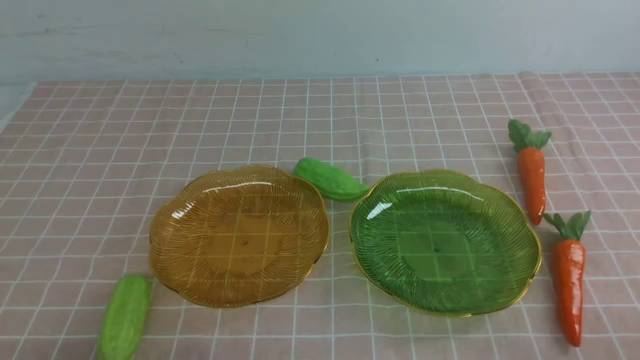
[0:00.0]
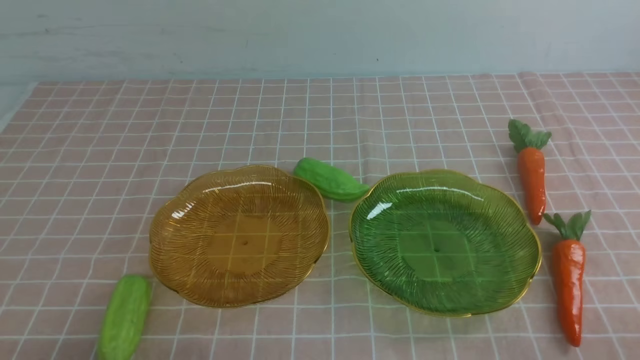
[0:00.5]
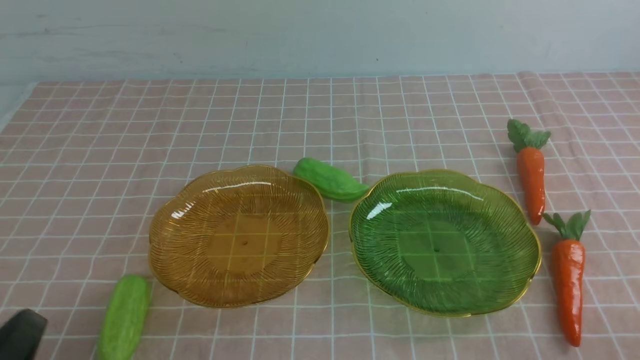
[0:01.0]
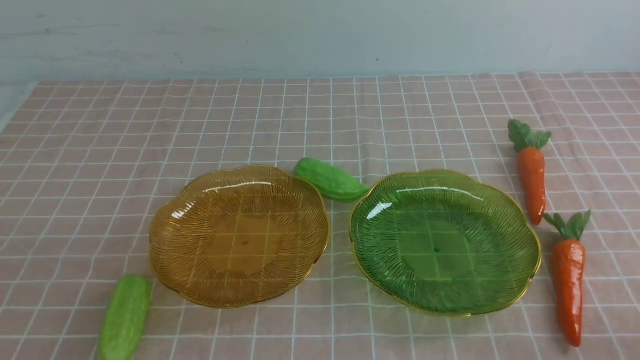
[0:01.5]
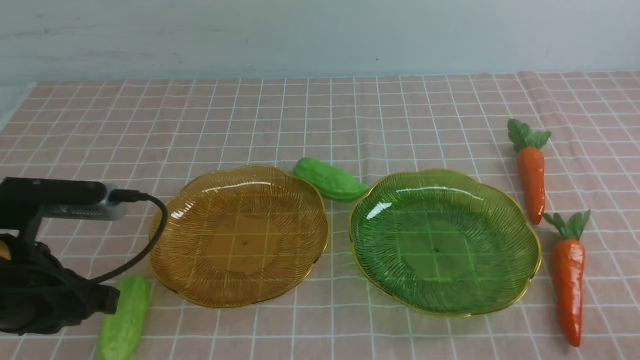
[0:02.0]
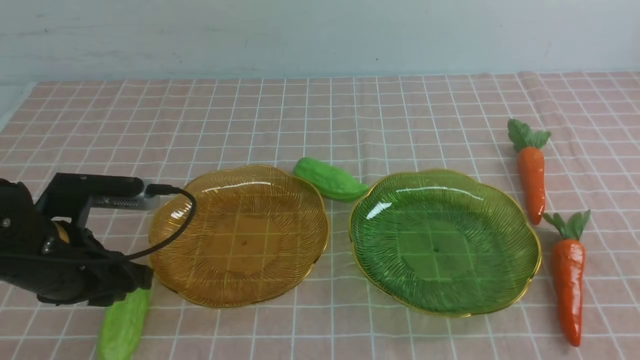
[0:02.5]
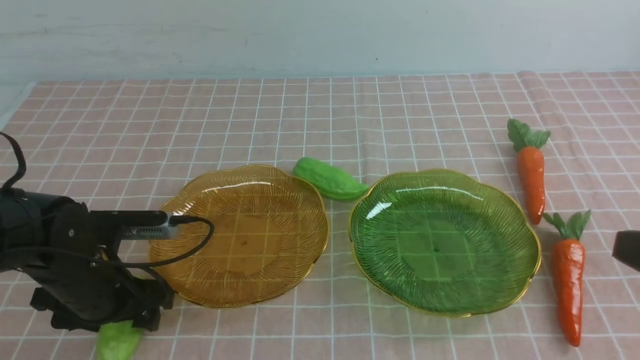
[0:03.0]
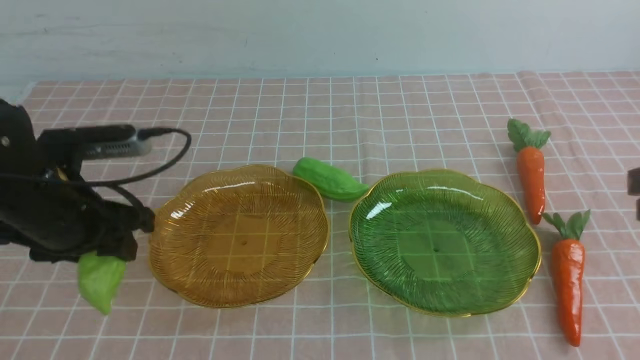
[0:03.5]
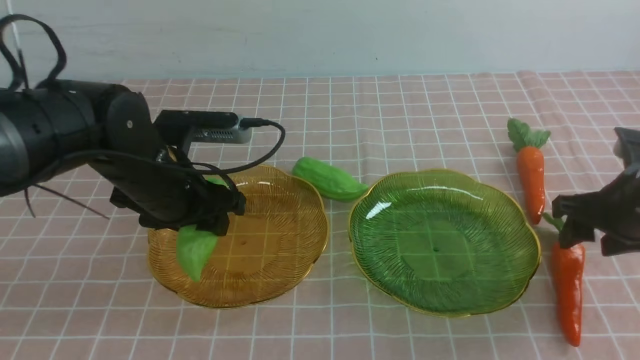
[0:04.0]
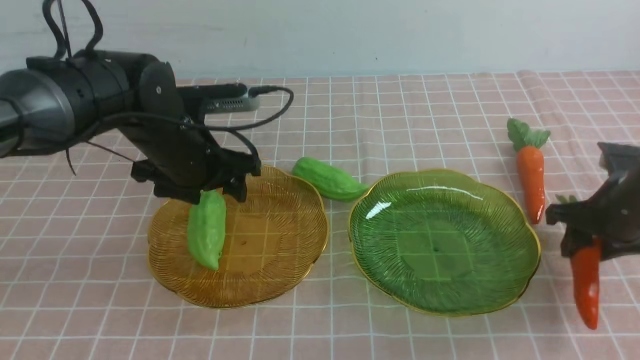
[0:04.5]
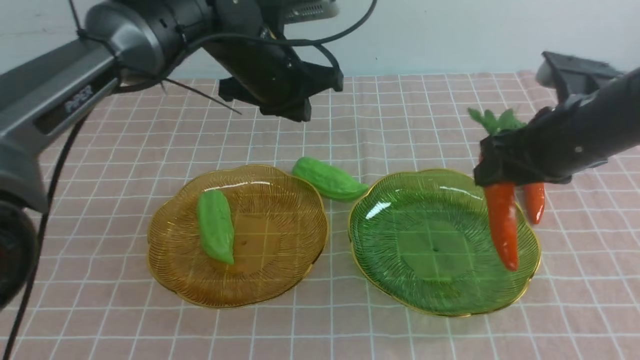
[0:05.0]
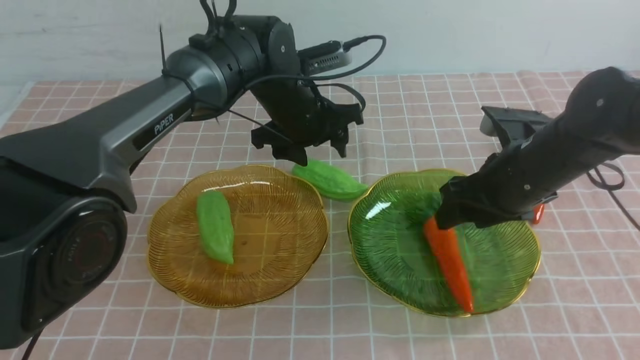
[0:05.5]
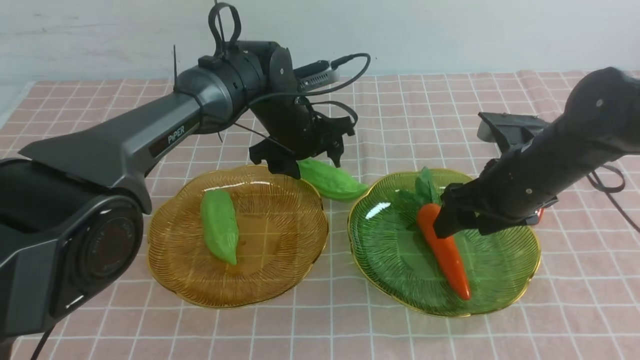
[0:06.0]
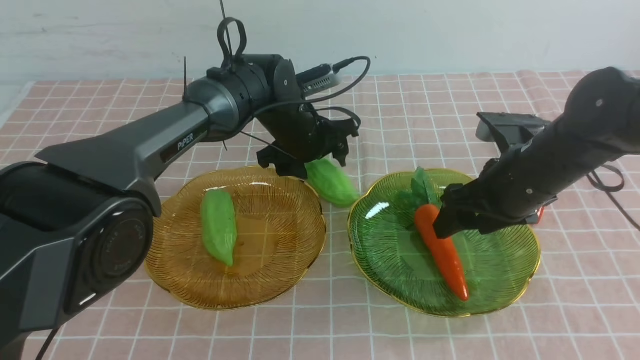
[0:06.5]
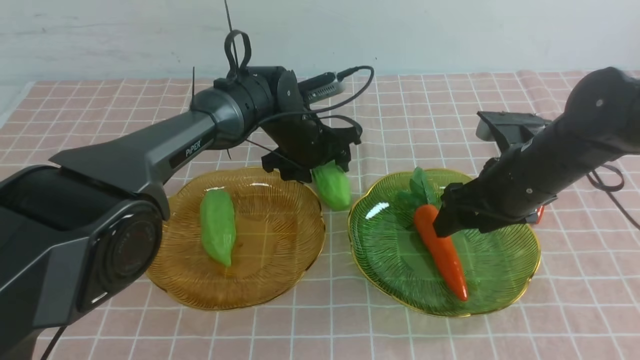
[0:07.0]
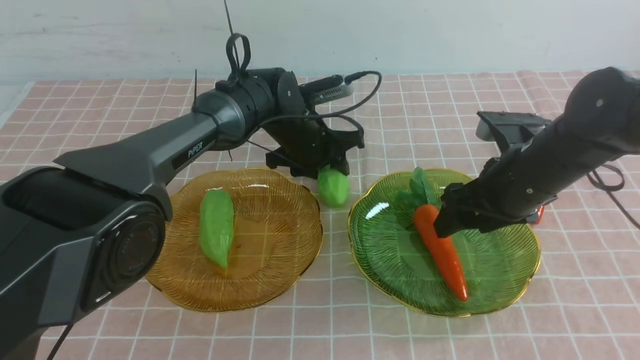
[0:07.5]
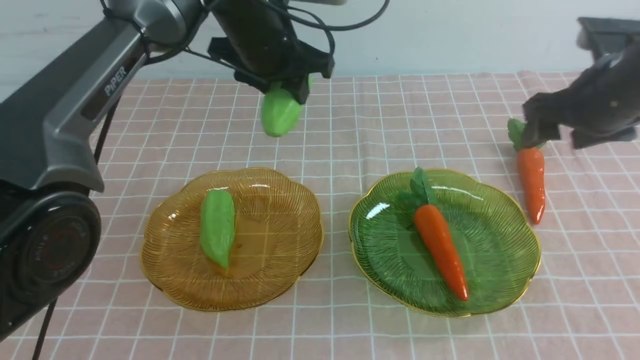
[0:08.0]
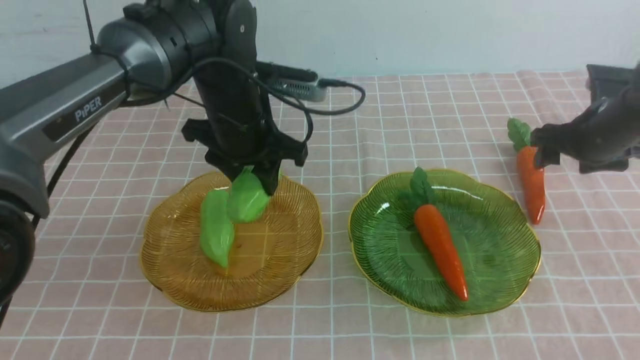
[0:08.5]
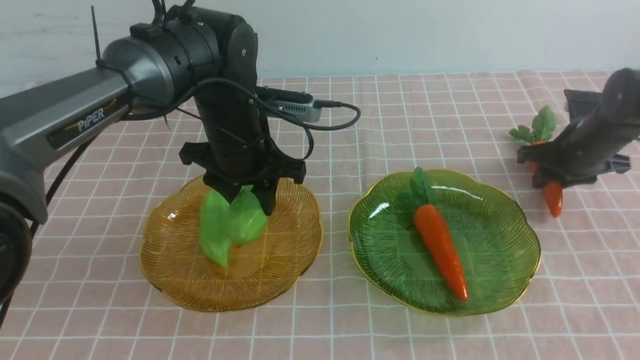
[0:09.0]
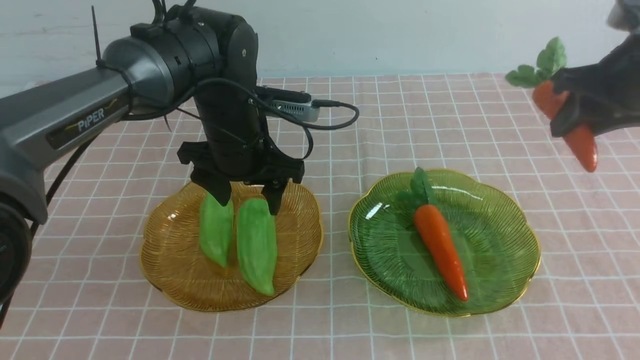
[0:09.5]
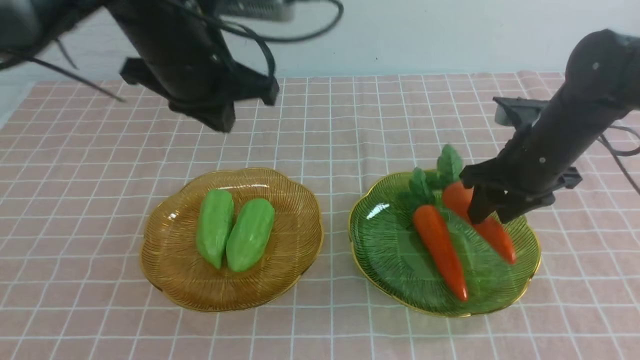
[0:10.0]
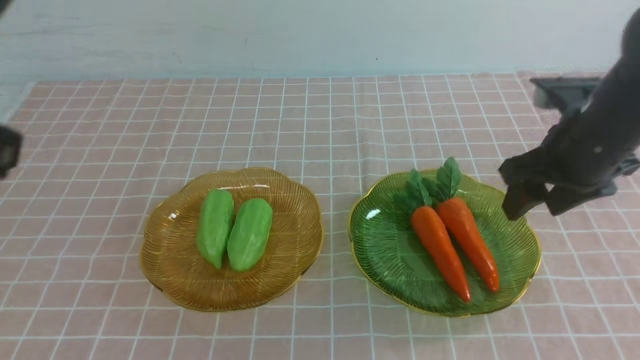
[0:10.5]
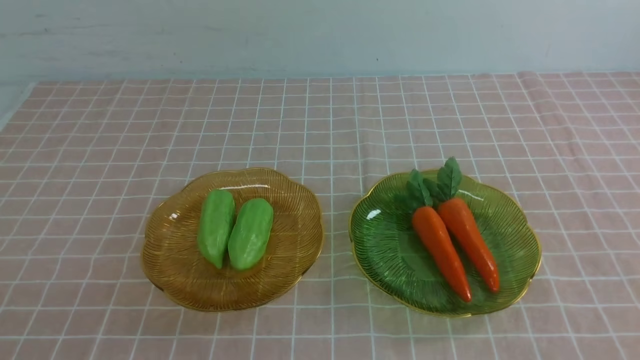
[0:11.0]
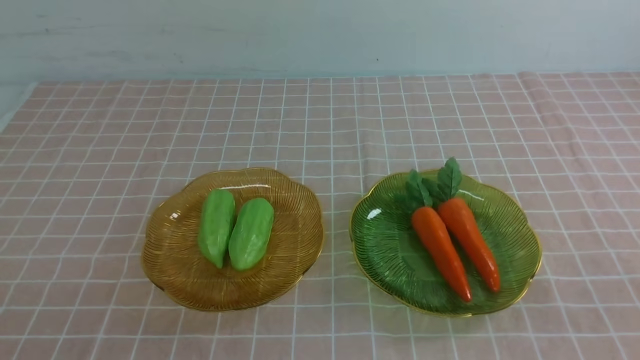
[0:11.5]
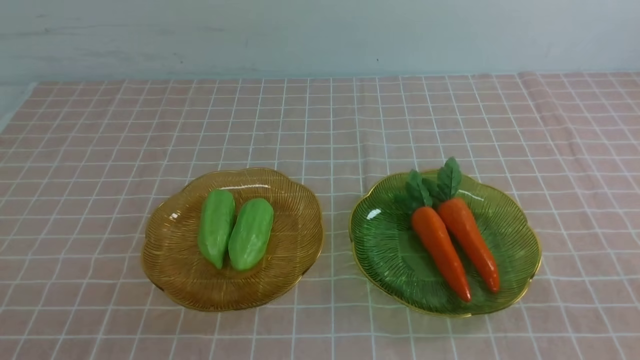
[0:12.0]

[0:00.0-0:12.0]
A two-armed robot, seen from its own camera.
Step, 0:00.0 to 0:04.0: use the left arm to grab a chayote and put it into the left plate.
Step, 0:04.5 to 0:05.5: use the right arm to grab a carrot and put it into the right plate.
Step, 0:06.0 to 0:08.0: use the left arm to grab a chayote and put it into the left plate.
Step, 0:08.5 to 0:10.0: use the right arm to grab a carrot and put it into the right plate.
0:00.0 to 0:02.0: The left gripper heads forward, covering about 15 cm.
0:02.0 to 0:04.0: The left gripper is displaced forward and to the right by approximately 15 cm, and opens its fingers; the right gripper goes roughly 25 cm forward, and opens its fingers.
0:04.0 to 0:06.0: The right gripper moves to the left, some 10 cm. The left gripper moves forward and to the right, approximately 15 cm, and closes, then reopens.
0:06.0 to 0:08.0: The right gripper travels to the right and forward by some 15 cm. The left gripper shifts roughly 10 cm upward, and closes.
0:08.0 to 0:10.0: The right gripper swings up and down, roughly 15 cm each way, with 2 reversals, and closes, then reopens; the left gripper shifts some 20 cm backward, upward and to the left, and closes its fingers.
0:10.0 to 0:12.0: The right gripper goes about 35 cm backward, and closes; the left gripper goes approximately 30 cm backward, downward and to the left.

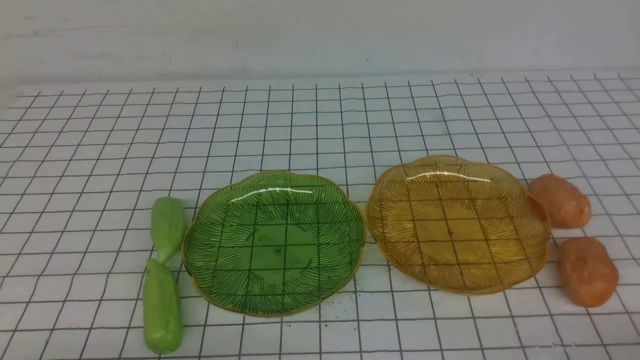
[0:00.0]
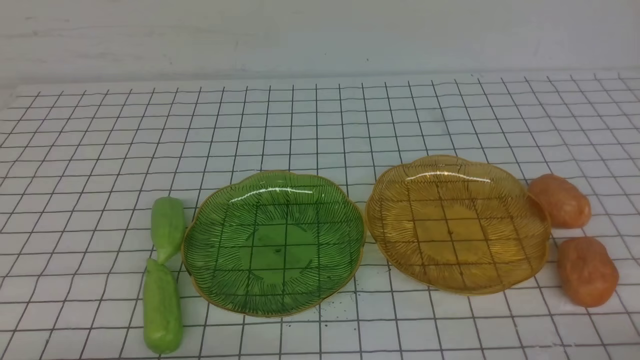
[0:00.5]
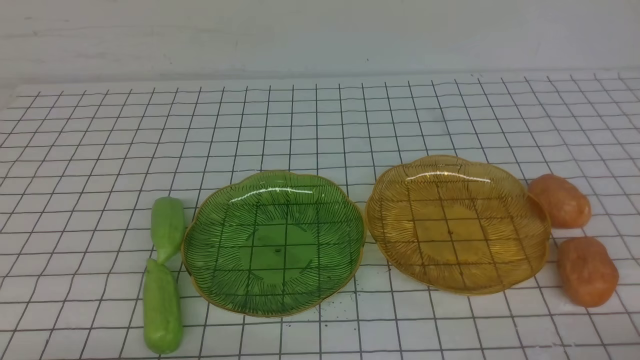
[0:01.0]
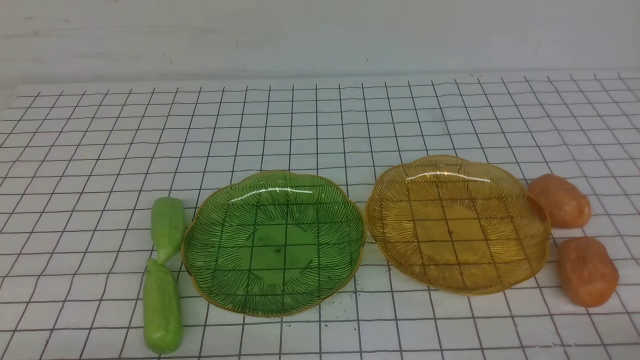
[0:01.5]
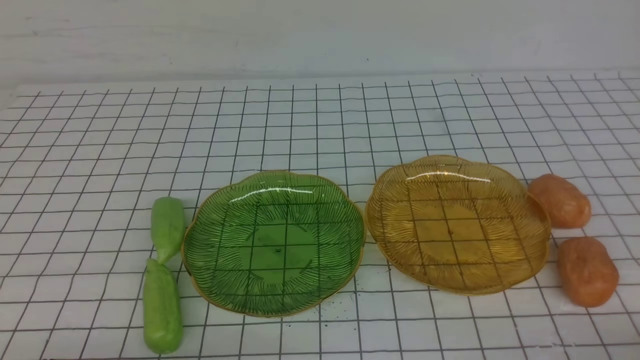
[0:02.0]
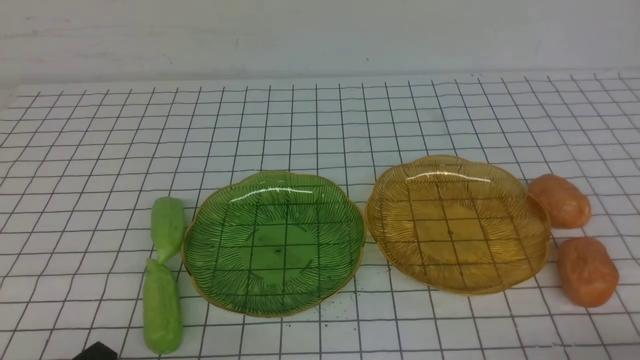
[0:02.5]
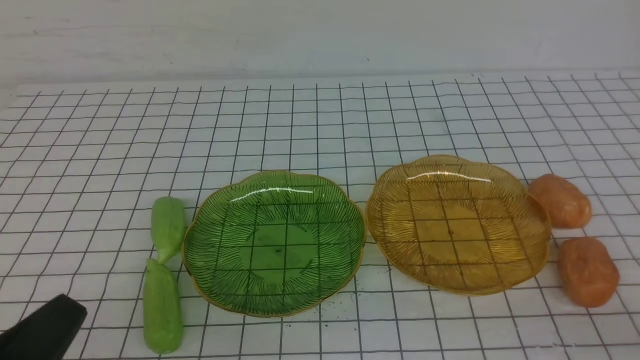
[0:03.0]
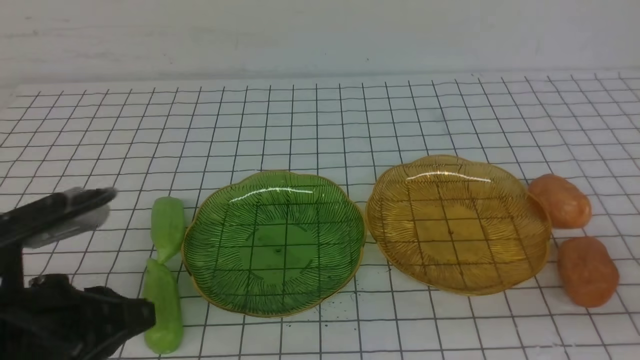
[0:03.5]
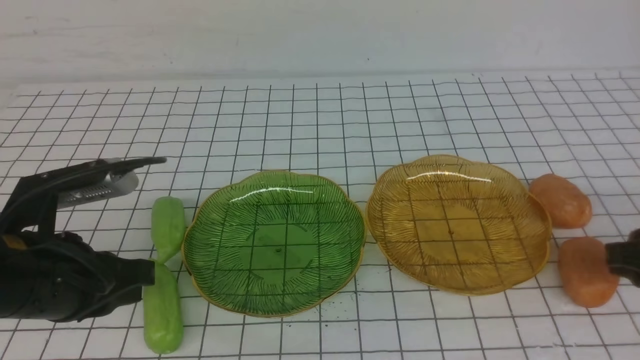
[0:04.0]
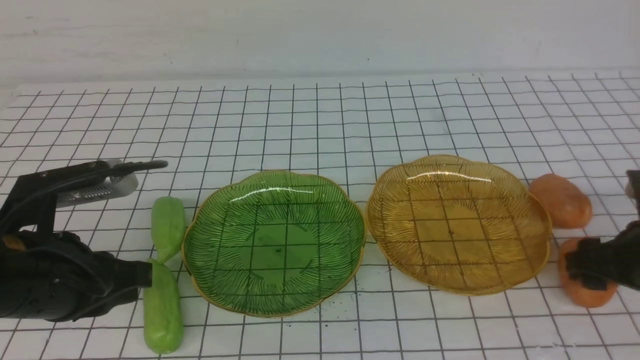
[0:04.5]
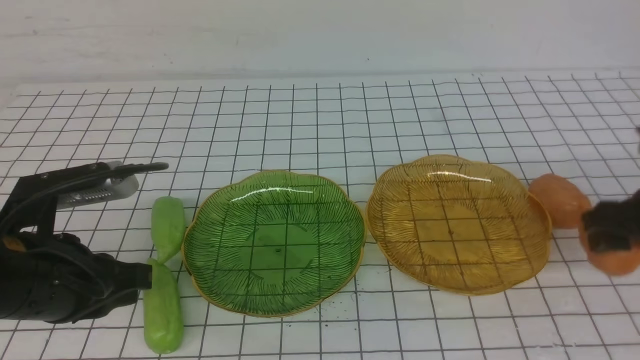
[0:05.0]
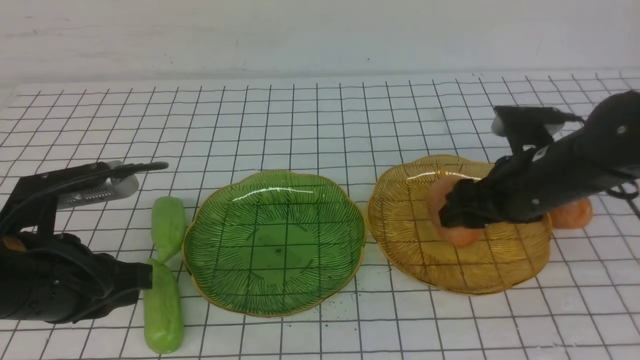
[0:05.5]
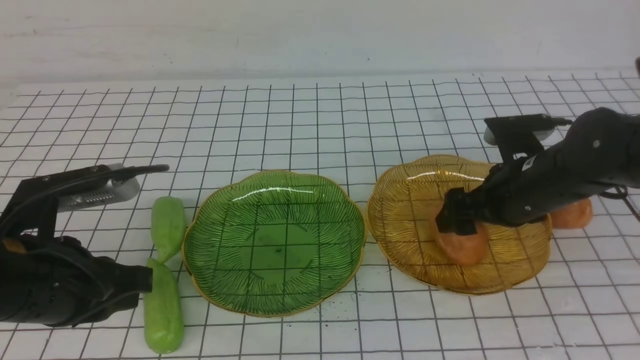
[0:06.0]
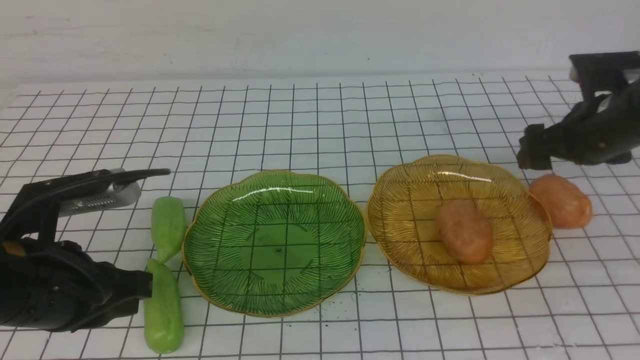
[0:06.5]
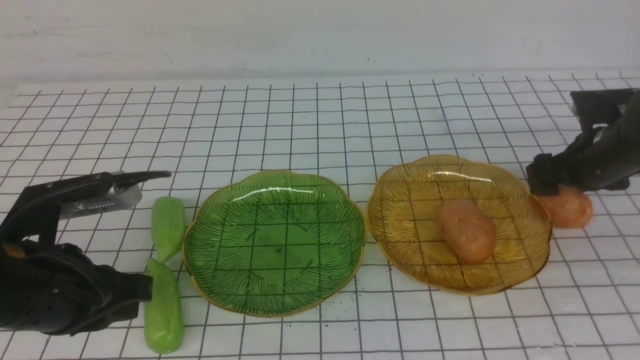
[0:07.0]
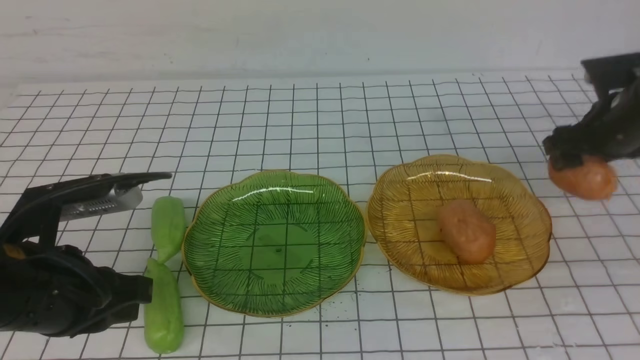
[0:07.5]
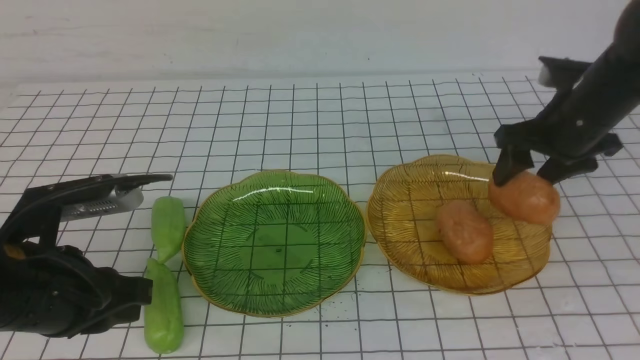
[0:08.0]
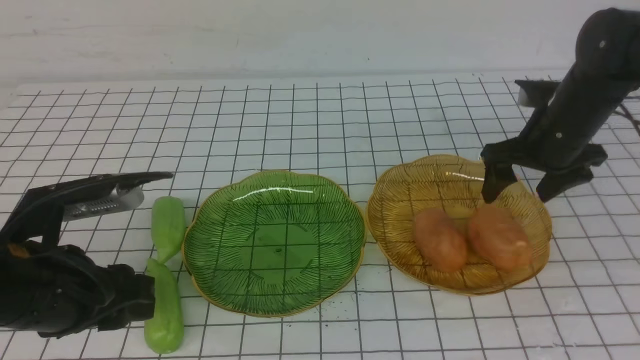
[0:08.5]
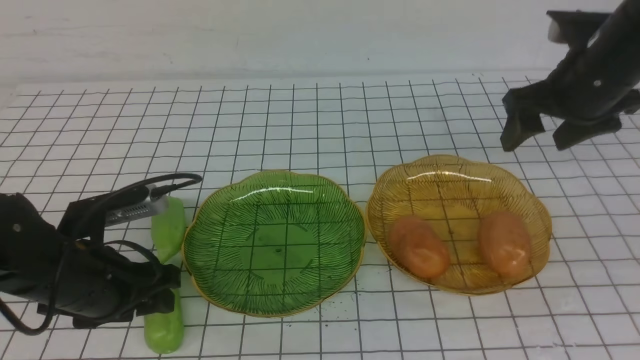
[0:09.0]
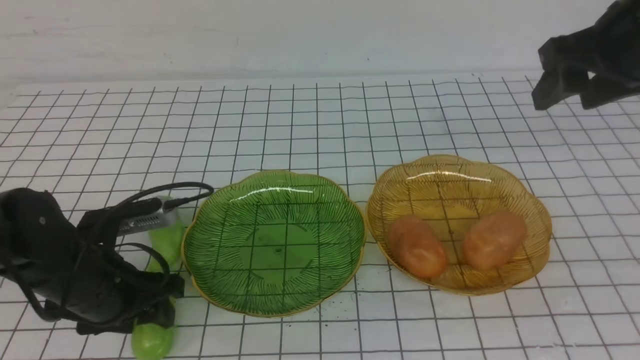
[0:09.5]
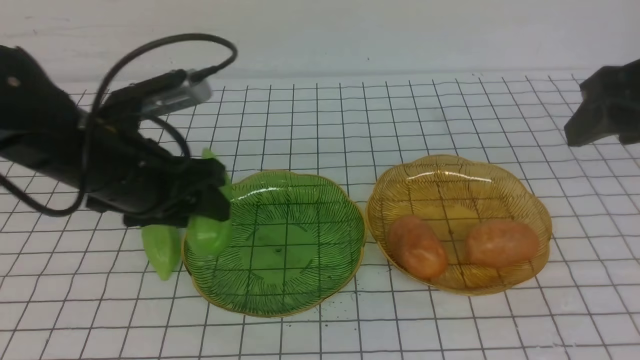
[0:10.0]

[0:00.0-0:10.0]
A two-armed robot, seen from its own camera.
Step, 0:00.0 to 0:06.0: Grab a potato with your right arm and put it on the right plate.
Step, 0:06.5 to 0:08.5: Grab a potato with your right arm and put it on the right plate.
0:02.0 to 0:04.0: The left gripper goes about 15 cm forward and upward. Meanwhile the right gripper moves forward, roughly 15 cm, and opens.
0:04.0 to 0:06.0: The right gripper travels forward and to the left by roughly 15 cm, and opens up.
0:06.0 to 0:08.0: The right gripper travels forward and to the right by approximately 5 cm.
0:08.0 to 0:10.0: The right gripper moves upward and backward, about 20 cm. The left gripper is displaced forward by about 10 cm, and opens up.
